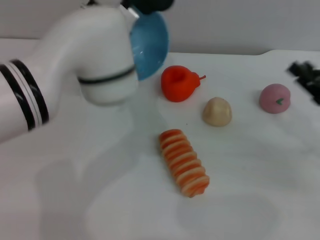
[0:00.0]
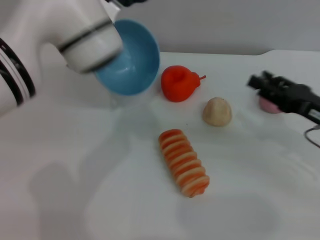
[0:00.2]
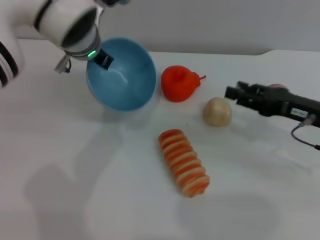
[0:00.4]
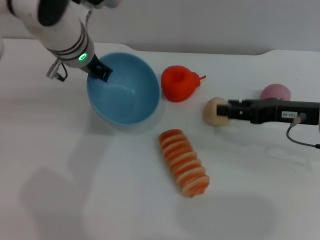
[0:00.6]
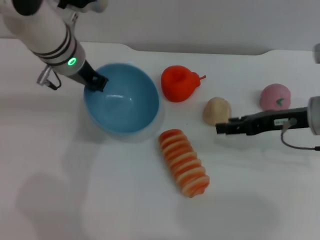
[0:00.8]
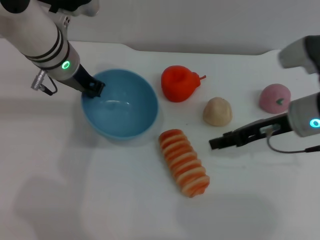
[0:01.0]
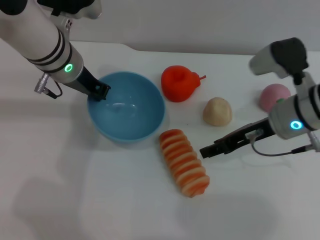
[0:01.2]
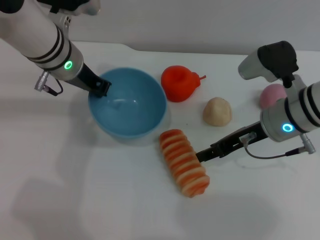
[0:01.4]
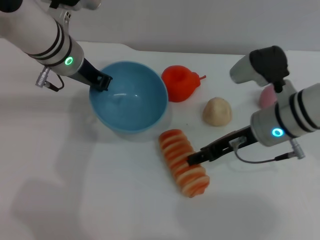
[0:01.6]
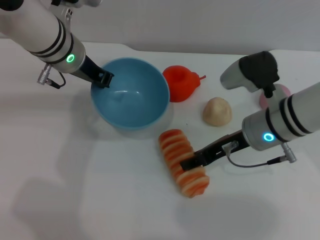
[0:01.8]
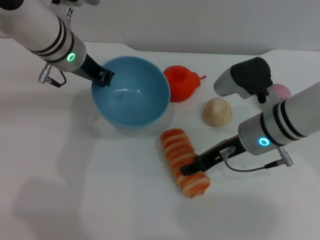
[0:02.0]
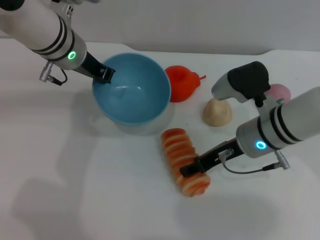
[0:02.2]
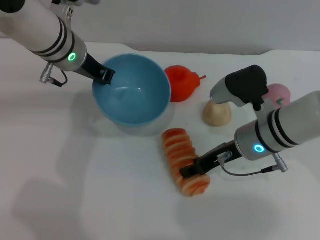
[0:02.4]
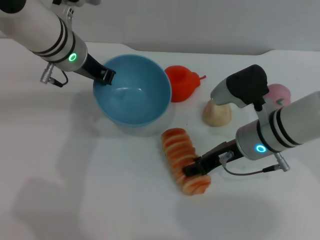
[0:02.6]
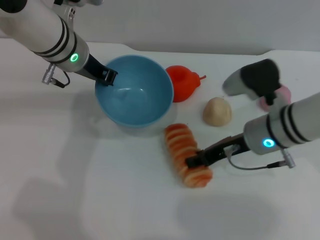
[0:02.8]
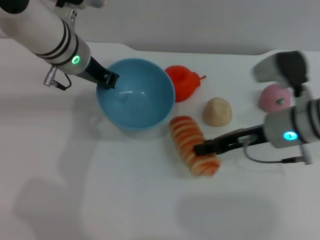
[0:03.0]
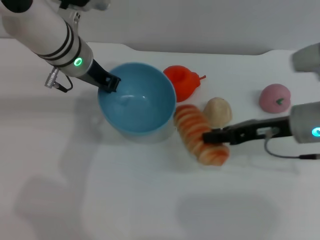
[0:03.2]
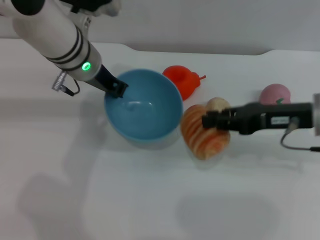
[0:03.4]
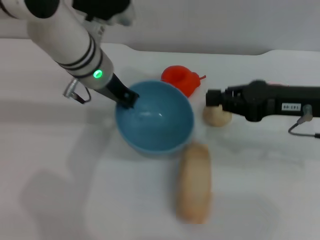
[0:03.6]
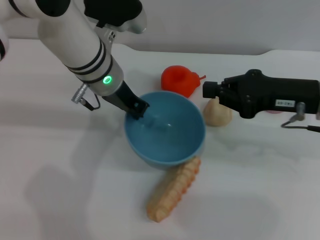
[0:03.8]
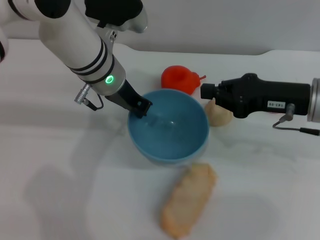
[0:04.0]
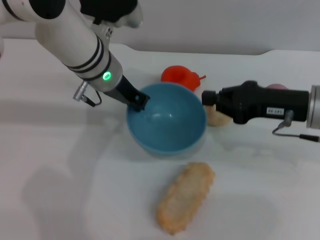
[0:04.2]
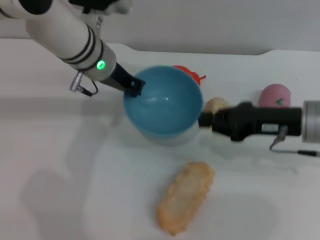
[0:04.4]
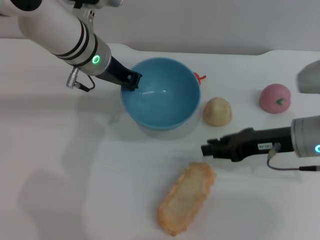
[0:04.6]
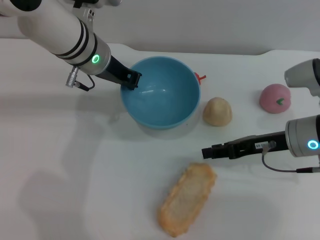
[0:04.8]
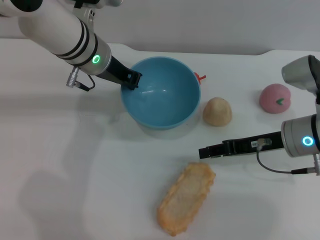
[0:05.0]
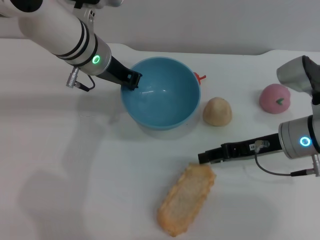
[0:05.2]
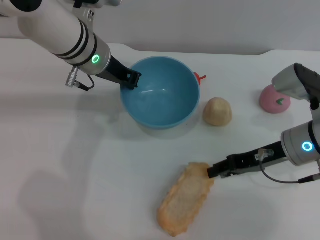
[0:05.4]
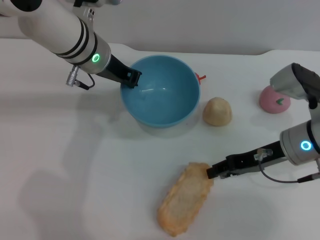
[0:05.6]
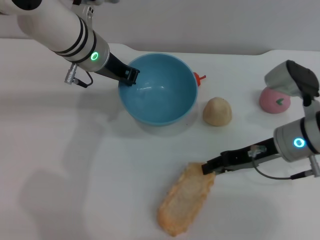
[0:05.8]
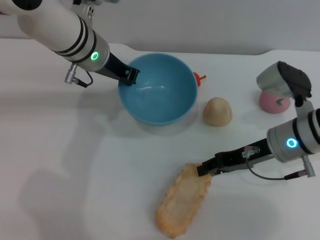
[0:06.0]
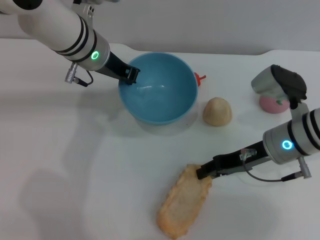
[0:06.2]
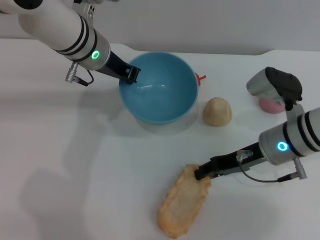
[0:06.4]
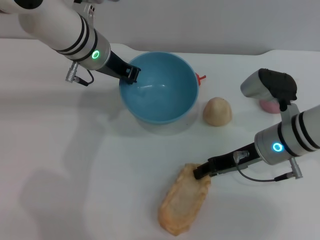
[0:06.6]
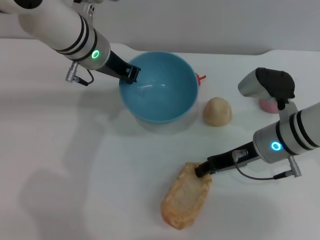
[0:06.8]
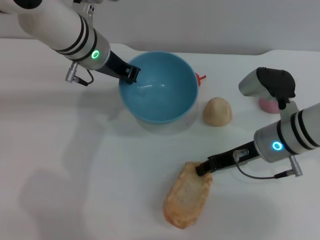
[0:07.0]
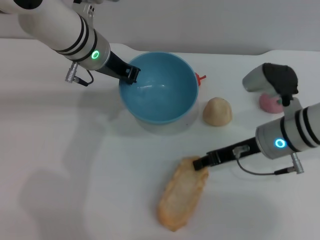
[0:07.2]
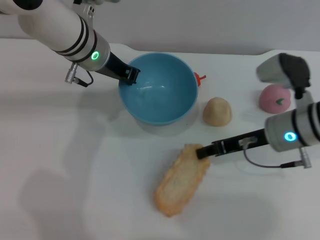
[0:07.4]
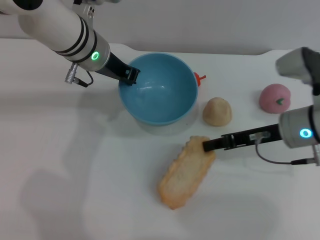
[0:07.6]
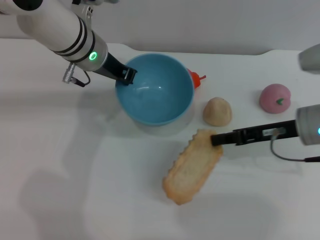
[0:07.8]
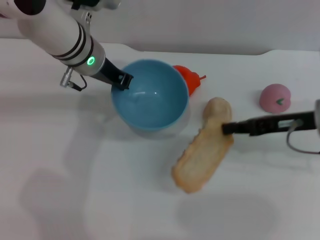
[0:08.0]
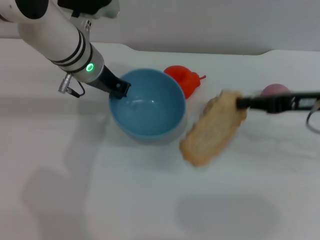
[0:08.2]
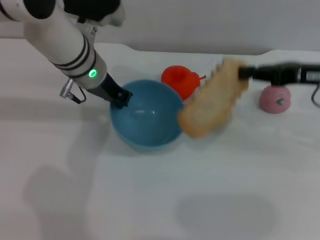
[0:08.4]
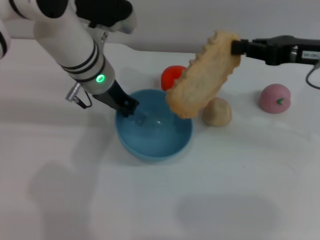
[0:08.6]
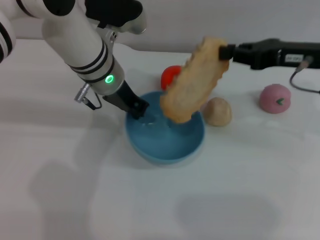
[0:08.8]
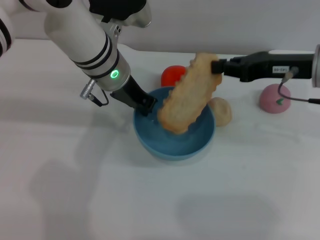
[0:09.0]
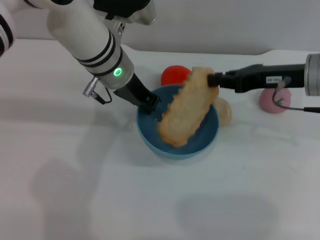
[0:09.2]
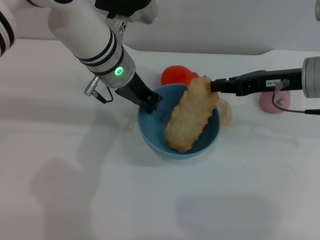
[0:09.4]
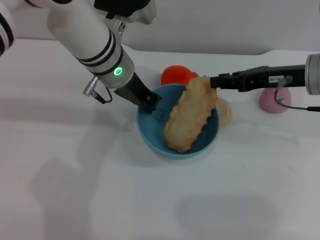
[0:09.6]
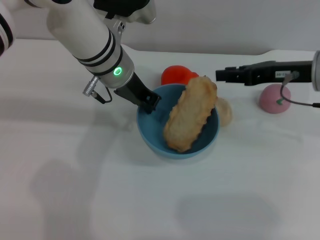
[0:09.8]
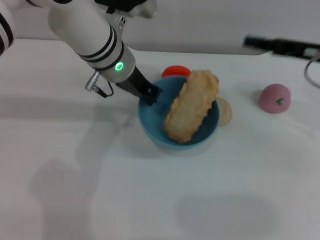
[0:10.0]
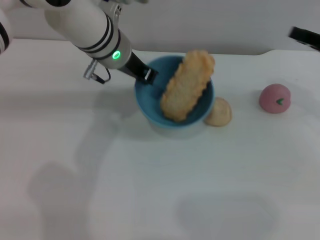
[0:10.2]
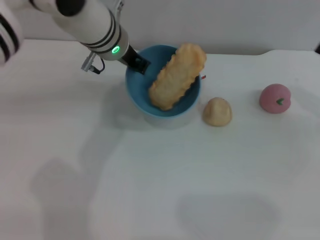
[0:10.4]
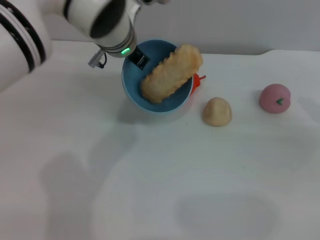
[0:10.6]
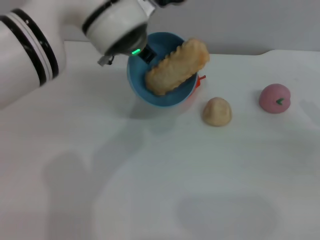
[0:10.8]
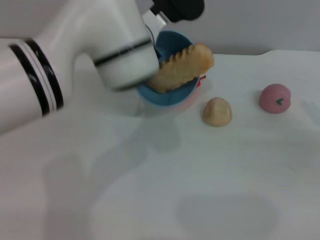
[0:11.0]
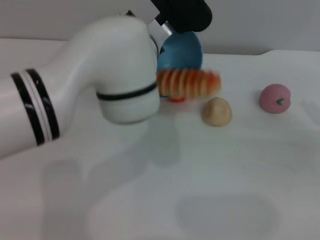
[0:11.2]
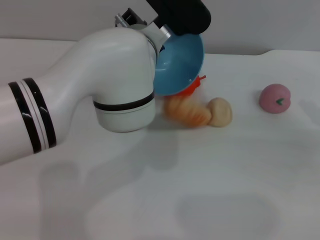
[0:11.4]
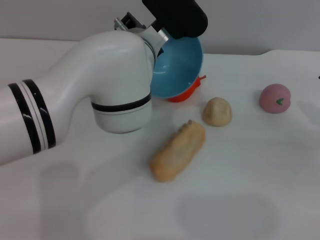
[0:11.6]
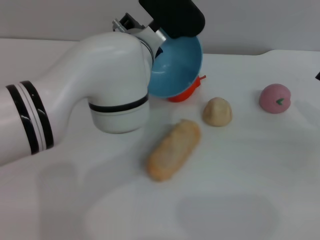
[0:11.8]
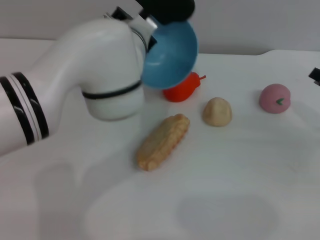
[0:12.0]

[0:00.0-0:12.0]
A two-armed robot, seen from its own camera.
Task of the whole recording: put the bread into the blue bowl and pour it out repeatedly.
Step, 0:00.0 to 0:08.4: Pick up the bread with the right gripper.
Step, 0:08.6 to 0:10.0: Place the bread into the bowl.
0:00.0 to 0:01.6: The right gripper travels to the left and forward by roughly 15 cm; the left gripper is displaced to the left by approximately 10 cm.
0:01.6 to 0:03.0: The right gripper closes.
0:03.0 to 0:04.4: The right gripper closes its fingers.
0:04.4 to 0:06.0: The right gripper moves approximately 5 cm, and opens up.
0:06.0 to 0:07.6: The right gripper closes up.
0:07.6 to 0:09.0: The right gripper shifts approximately 10 cm upward.
0:09.0 to 0:10.4: The right gripper heads to the right, covering approximately 15 cm, and opens.
0:10.4 to 0:12.0: The left gripper ends up about 5 cm from where it was.

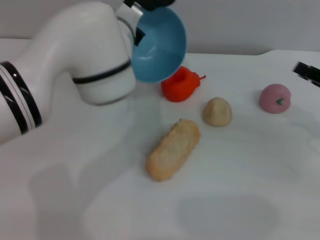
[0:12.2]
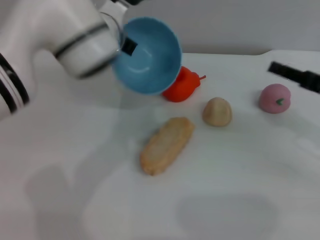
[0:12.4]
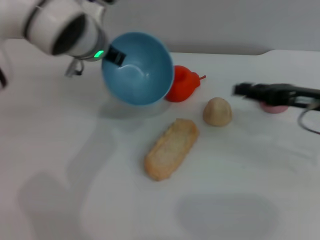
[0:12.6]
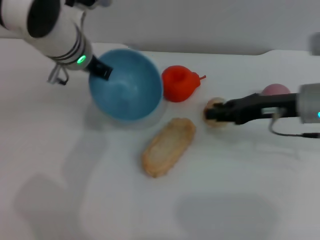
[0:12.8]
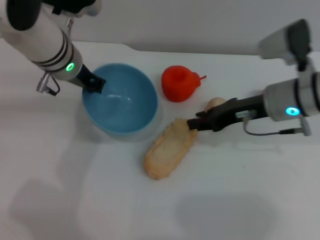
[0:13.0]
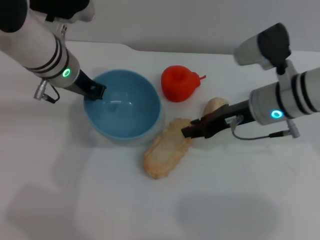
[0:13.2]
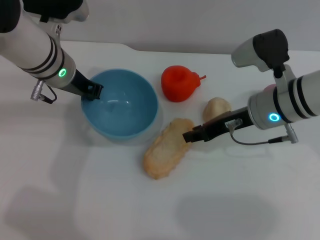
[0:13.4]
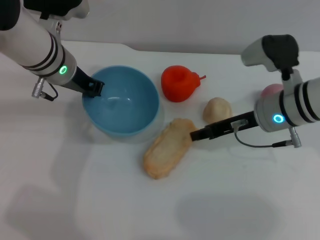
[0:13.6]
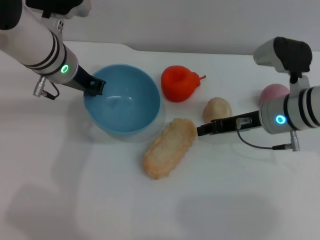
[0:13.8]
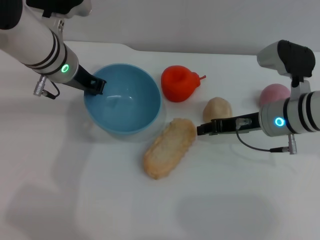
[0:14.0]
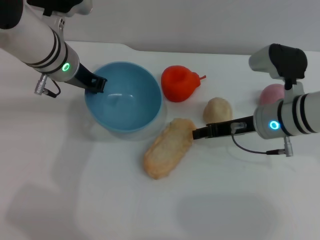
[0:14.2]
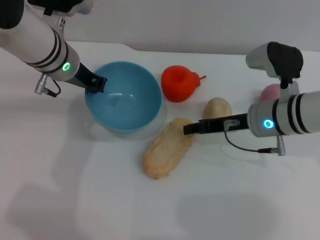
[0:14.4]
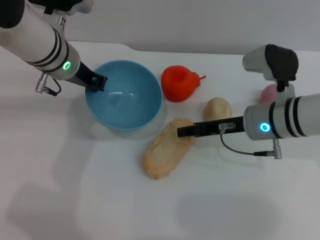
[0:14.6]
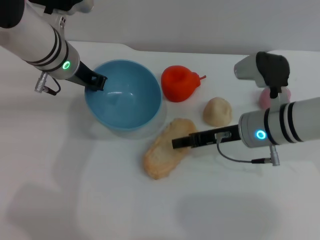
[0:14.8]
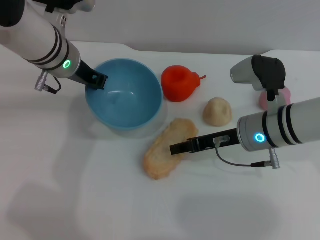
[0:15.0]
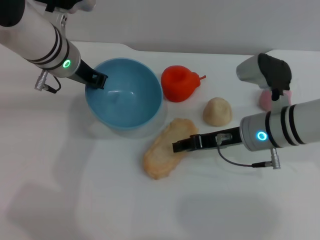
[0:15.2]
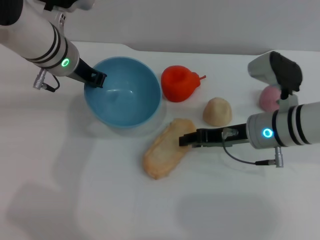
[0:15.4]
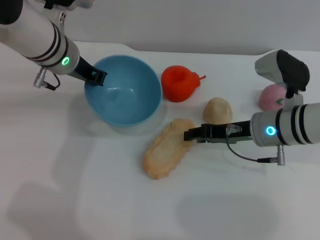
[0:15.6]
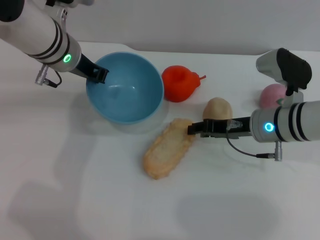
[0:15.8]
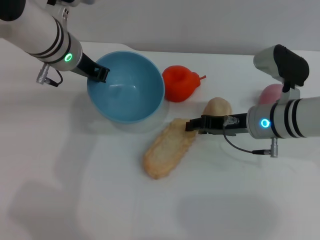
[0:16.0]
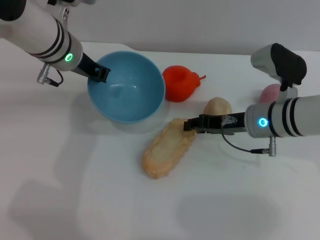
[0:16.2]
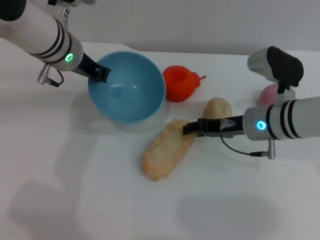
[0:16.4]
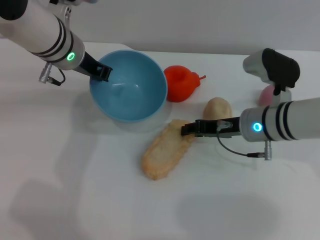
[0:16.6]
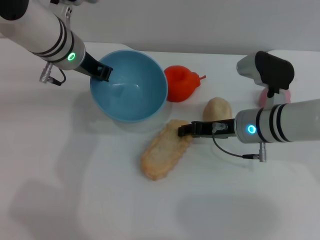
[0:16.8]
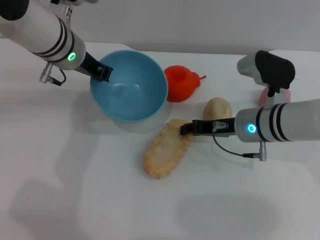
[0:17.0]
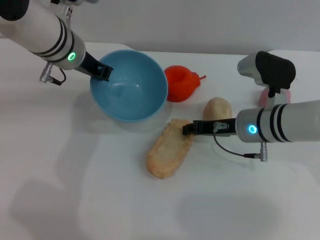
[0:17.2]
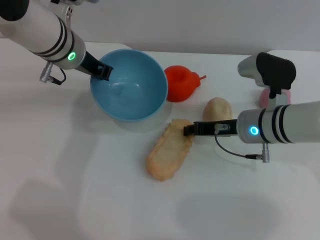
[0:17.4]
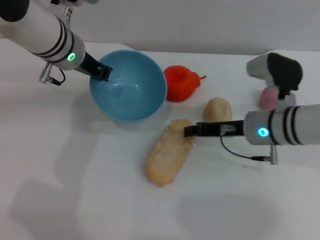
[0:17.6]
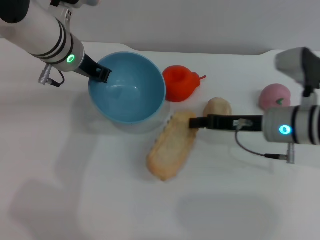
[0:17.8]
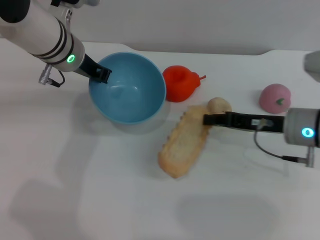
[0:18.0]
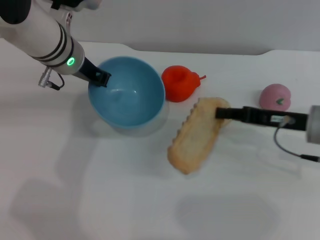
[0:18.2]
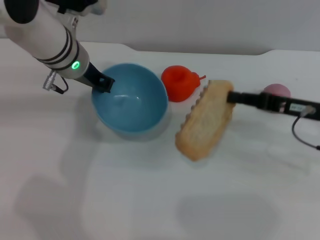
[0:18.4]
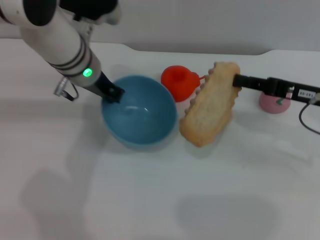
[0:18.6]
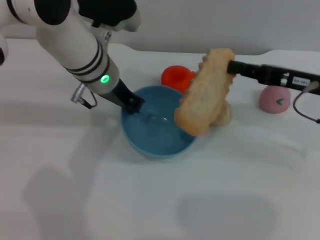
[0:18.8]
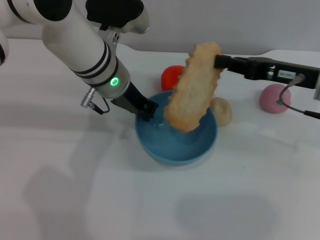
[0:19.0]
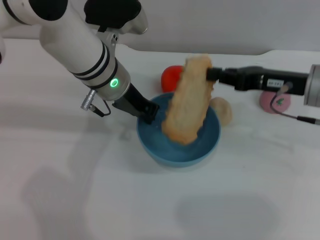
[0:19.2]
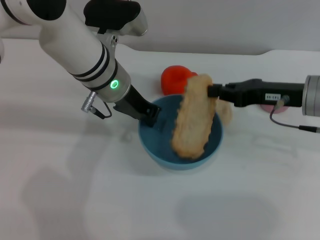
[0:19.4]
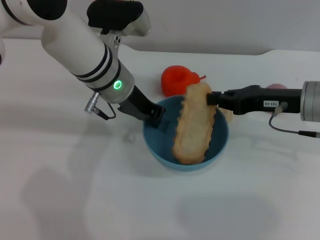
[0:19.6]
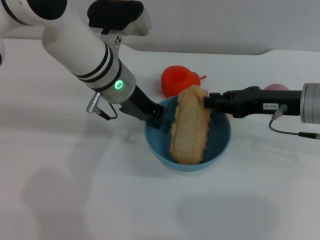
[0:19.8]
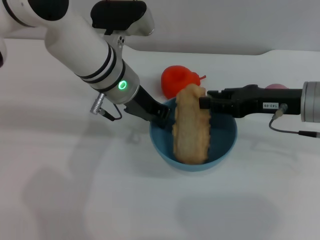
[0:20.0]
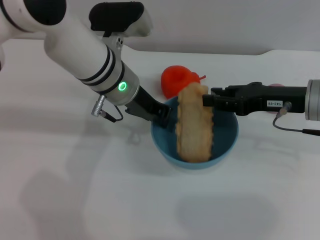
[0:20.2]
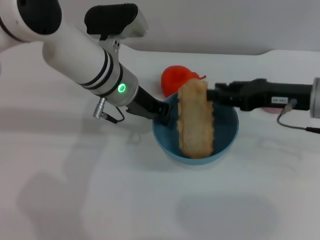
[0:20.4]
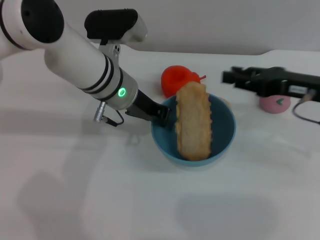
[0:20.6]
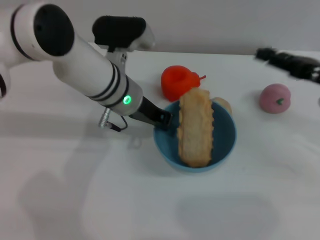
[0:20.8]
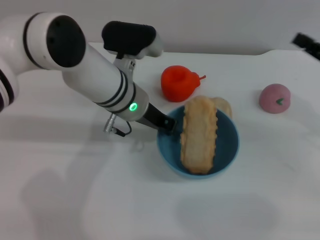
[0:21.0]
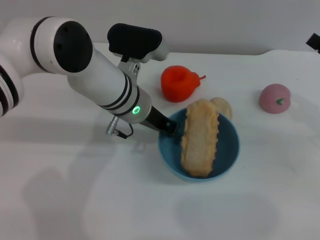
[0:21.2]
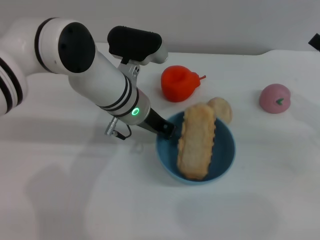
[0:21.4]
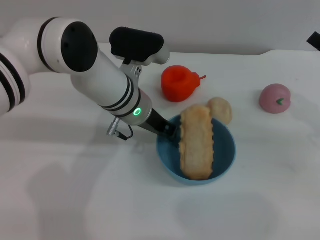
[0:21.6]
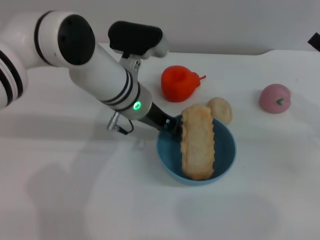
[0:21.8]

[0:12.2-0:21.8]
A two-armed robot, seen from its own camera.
Task of the whole recording: put the bread into the blue bowl and pour it out repeatedly.
Step, 0:12.4 to 0:18.4: Pick up the bread with the right gripper.
Step, 0:18.8 to 0:21.0: Place the bread into the bowl.
0:12.2 to 0:13.8: The right gripper moves to the left, some 15 cm. Meanwhile the left gripper moves to the left, approximately 10 cm.
0:13.8 to 0:17.0: The grippers move only a little.
0:17.0 to 0:18.6: The right gripper is displaced to the right and upward by approximately 15 cm, and closes its fingers.
0:18.6 to 0:20.2: The right gripper opens up.
0:20.2 to 0:21.8: The right gripper goes some 10 cm to the right.
